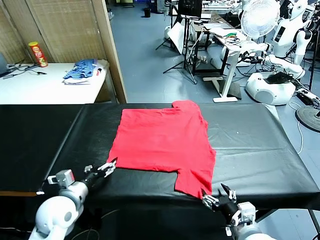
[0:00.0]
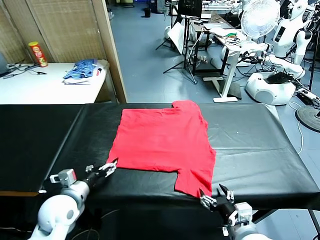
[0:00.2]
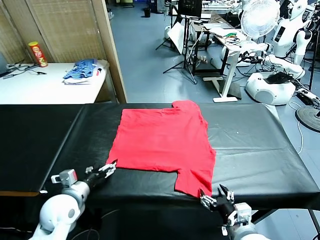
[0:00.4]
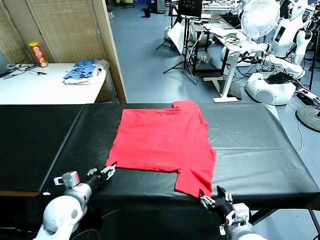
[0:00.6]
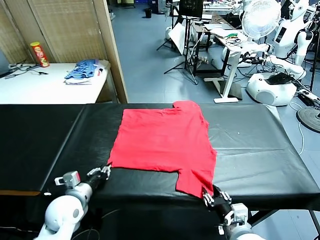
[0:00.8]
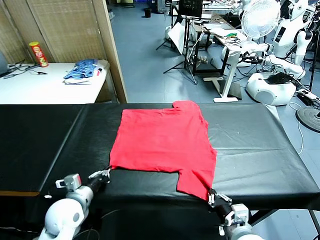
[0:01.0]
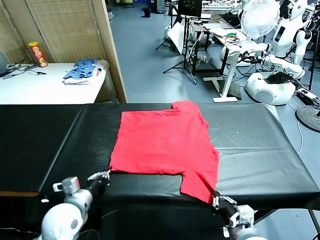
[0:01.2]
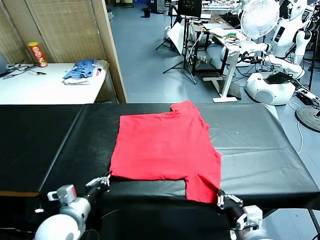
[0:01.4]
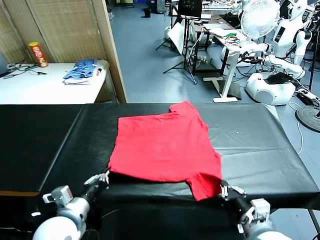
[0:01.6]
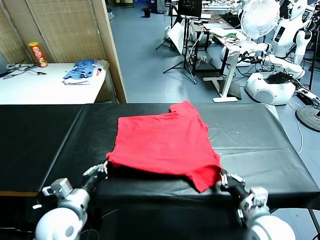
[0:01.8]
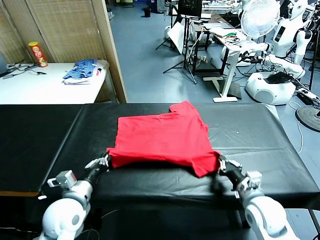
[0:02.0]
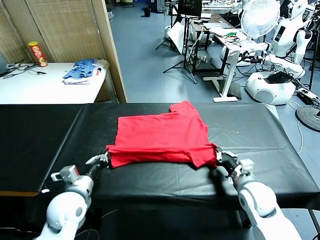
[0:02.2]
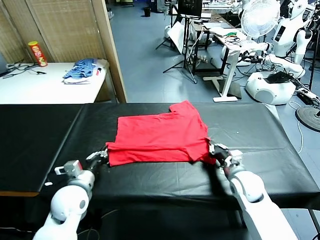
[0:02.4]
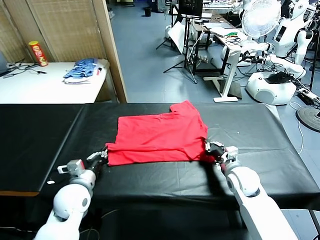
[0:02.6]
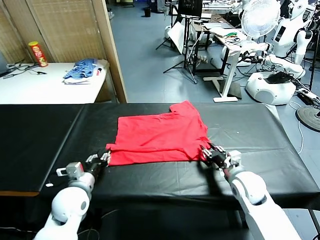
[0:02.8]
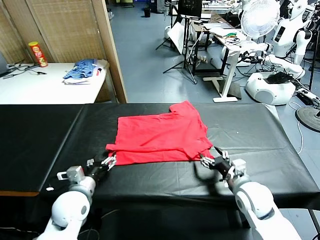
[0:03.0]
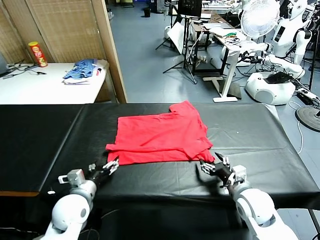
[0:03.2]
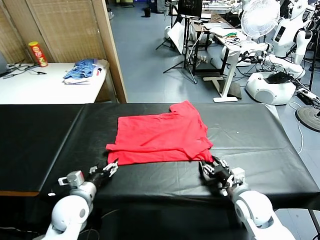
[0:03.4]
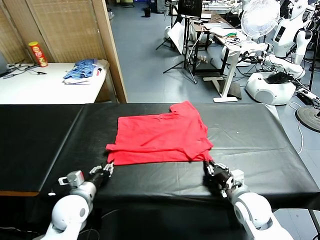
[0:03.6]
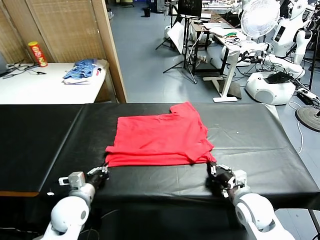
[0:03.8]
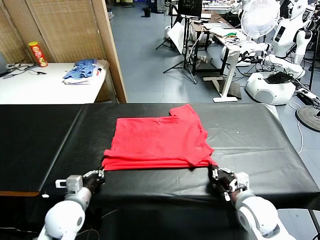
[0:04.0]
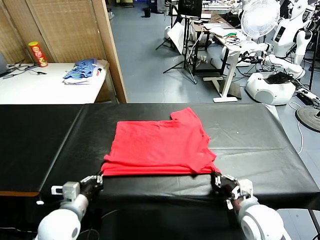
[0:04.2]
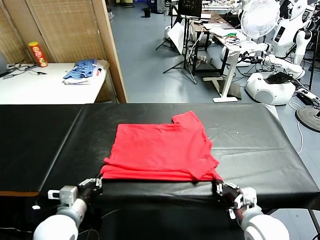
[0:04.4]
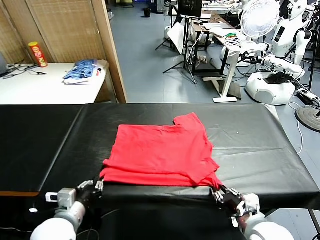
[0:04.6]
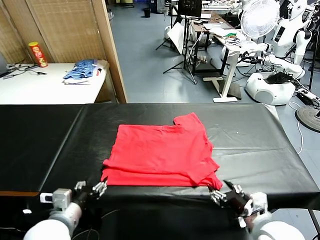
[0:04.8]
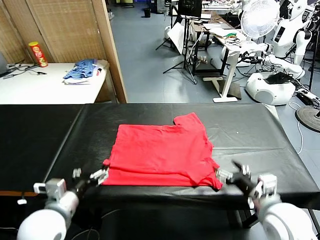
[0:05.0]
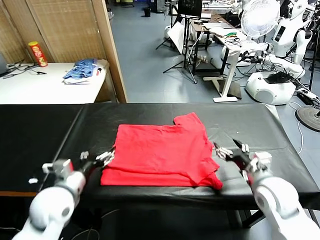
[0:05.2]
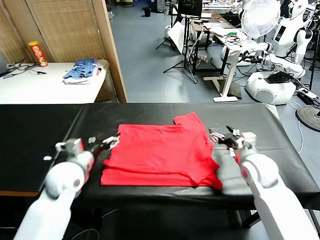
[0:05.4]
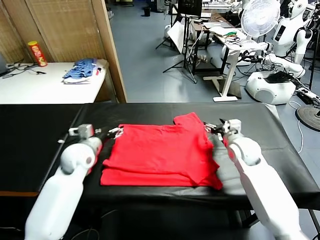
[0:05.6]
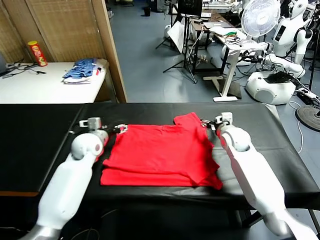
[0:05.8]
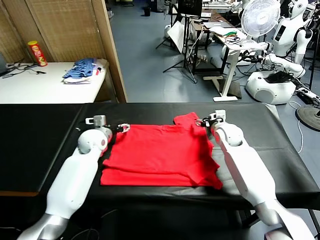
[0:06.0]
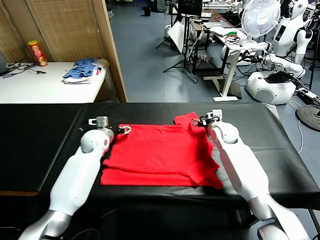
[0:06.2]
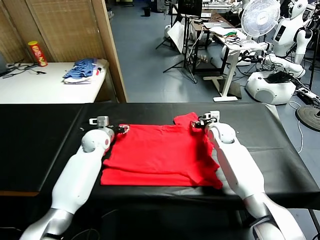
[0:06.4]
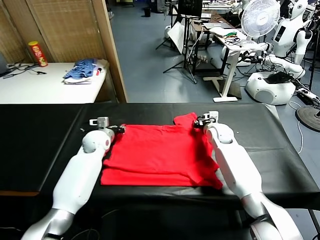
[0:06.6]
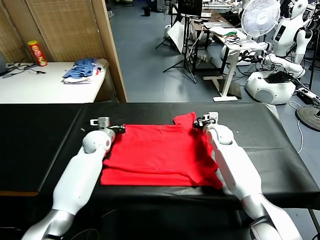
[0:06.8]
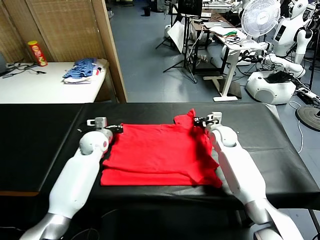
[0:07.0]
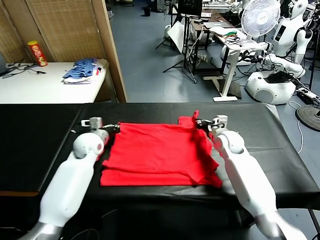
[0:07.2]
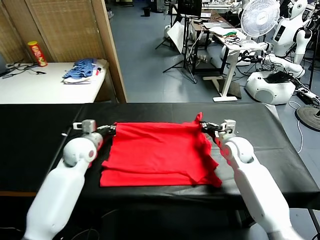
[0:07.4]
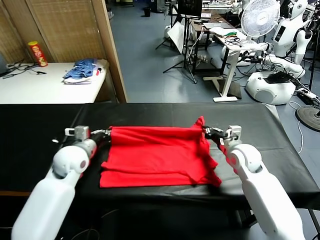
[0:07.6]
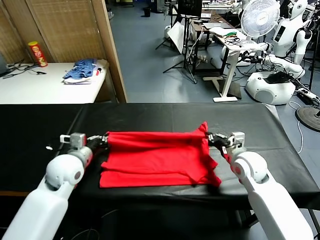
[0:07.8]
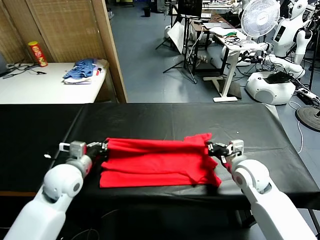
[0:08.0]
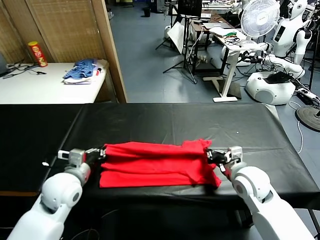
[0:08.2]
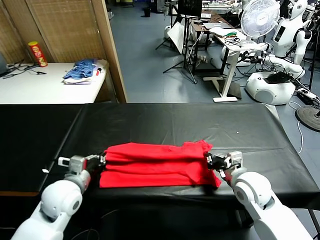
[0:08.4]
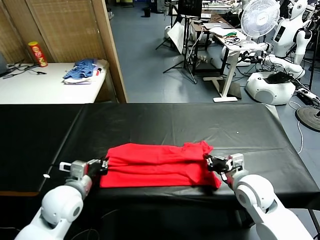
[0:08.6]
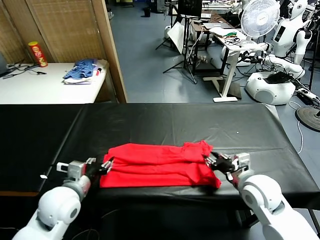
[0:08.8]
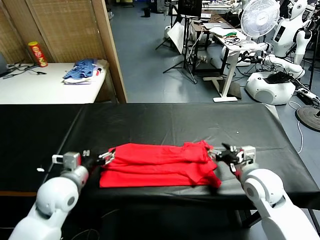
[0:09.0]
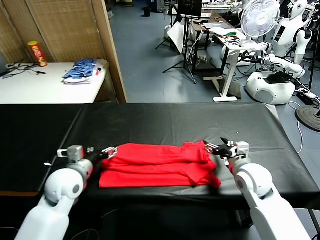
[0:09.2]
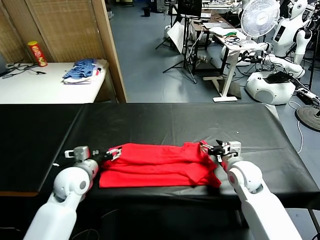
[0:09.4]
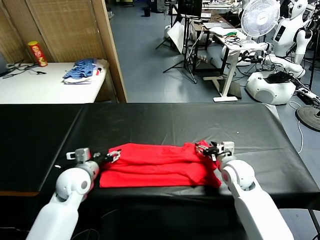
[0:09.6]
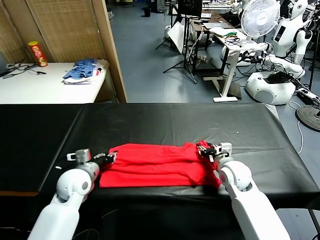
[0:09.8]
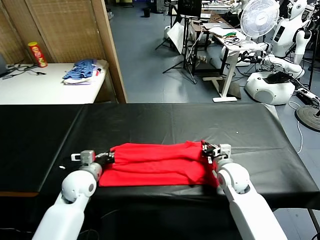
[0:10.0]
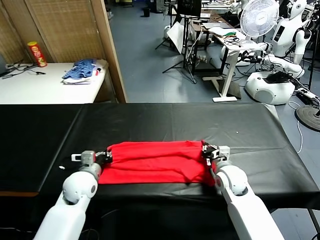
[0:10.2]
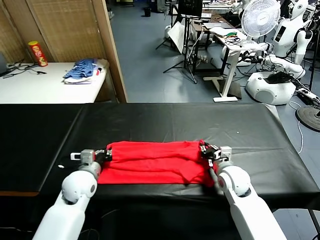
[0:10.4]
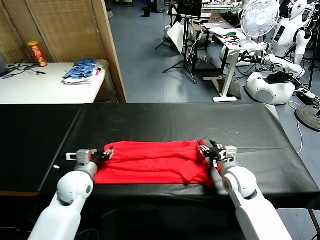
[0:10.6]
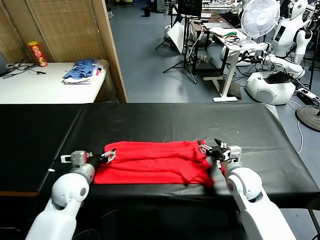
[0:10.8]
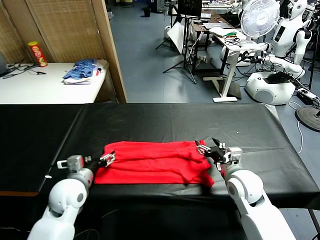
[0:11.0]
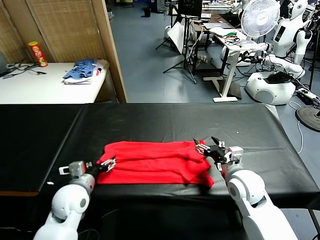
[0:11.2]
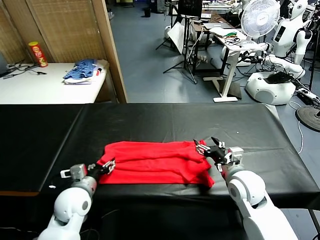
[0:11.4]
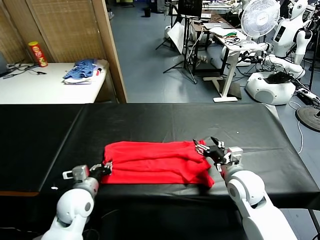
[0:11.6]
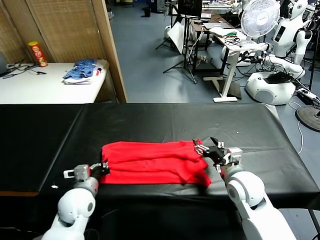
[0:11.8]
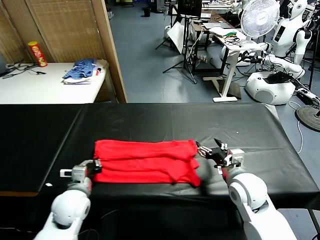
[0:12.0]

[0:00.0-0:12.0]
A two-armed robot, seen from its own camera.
Task of the whole recording: fold and organize the clothes.
Step, 0.0 to 1.2 s: use both grippers simultaneously to clamp the lower edge of the clothing fabric.
Step, 1.4 to 2.8 s: use both grippers to drag the lower edge of the fabric forward and fold it over the upper edge.
Step, 3.0 to 4.6 s: Drag the clothes downward with both gripper.
Step, 4.8 to 7.0 s: use both grippers simultaneously to clamp the upper edge of the clothing fabric.
Step, 7.4 to 11.8 s: use the left gripper to clamp the left edge of the fabric.
1.6 to 3.0 s: The two grippers go roughly 10 cm forward. The right gripper opens up. The left gripper opens its fingers.
3.0 to 4.4 s: The two grippers go some 10 cm backward. The left gripper closes up. The right gripper closes up.
4.4 to 6.0 s: The two grippers go roughly 30 cm forward. The left gripper opens. The right gripper opens up.
6.0 to 7.6 s: Both grippers travel together backward, approximately 10 cm. The right gripper closes; the left gripper closes its fingers.
7.6 to 9.0 s: Both grippers move backward, roughly 10 cm. The right gripper opens up, while the left gripper opens.
9.0 to 10.4 s: The grippers both shift downward and forward by approximately 10 cm. The left gripper closes, while the right gripper closes.
10.4 to 12.0 s: The left gripper shifts roughly 5 cm backward, and opens and closes again. Meanwhile the right gripper travels upward and backward by some 10 cm, and opens.

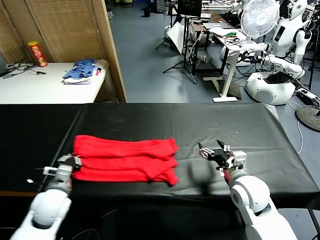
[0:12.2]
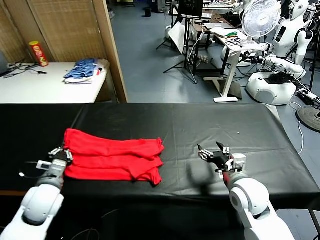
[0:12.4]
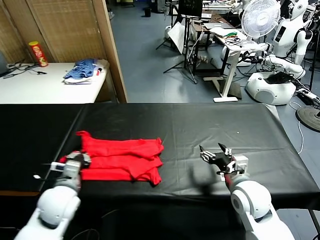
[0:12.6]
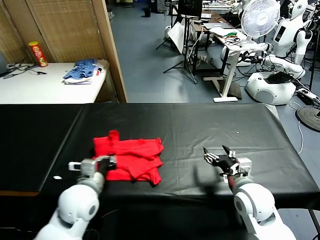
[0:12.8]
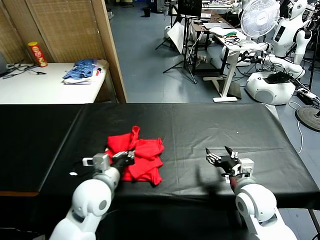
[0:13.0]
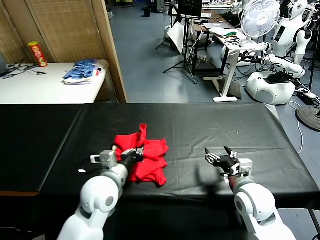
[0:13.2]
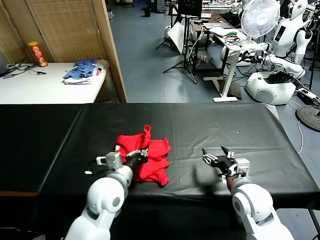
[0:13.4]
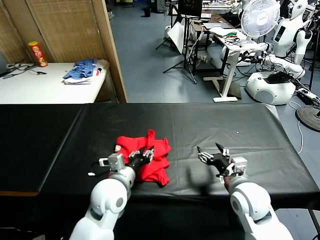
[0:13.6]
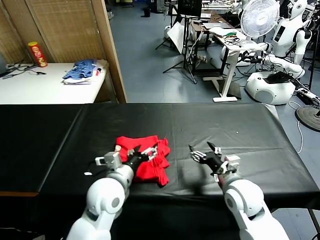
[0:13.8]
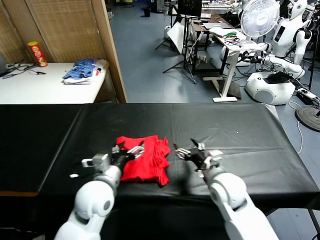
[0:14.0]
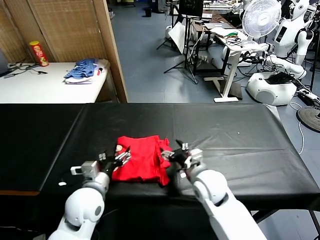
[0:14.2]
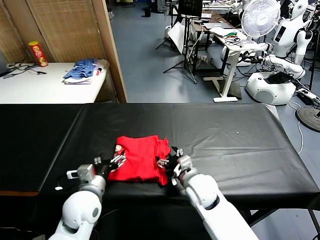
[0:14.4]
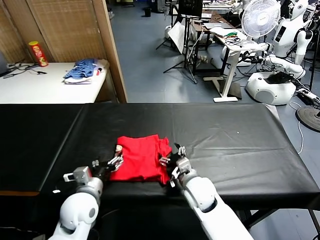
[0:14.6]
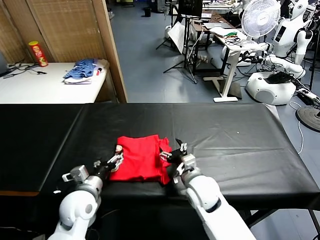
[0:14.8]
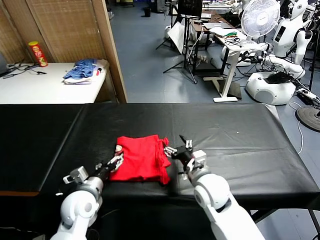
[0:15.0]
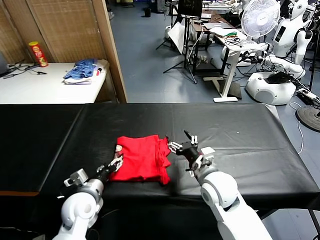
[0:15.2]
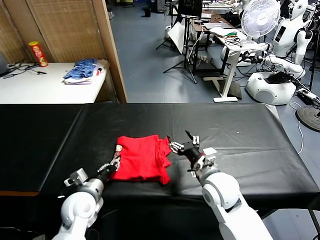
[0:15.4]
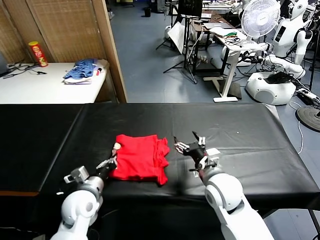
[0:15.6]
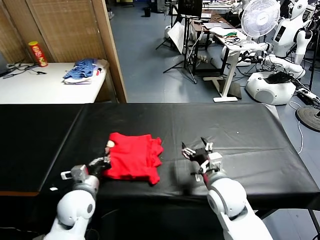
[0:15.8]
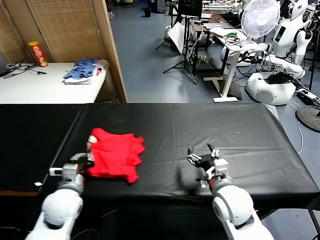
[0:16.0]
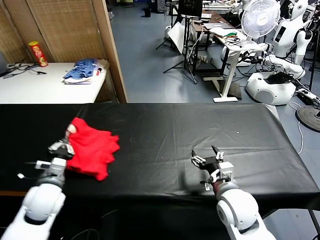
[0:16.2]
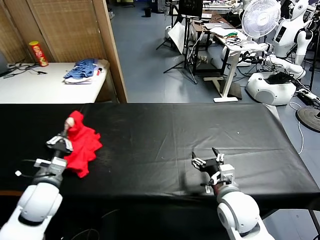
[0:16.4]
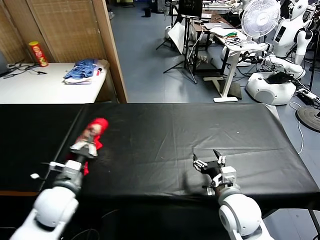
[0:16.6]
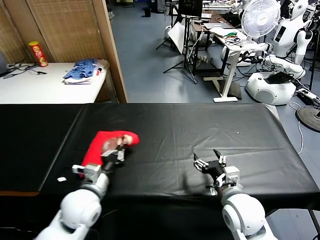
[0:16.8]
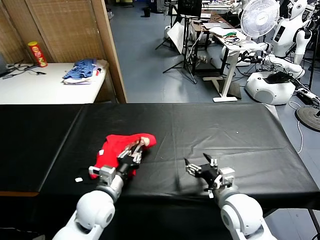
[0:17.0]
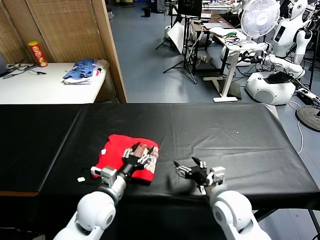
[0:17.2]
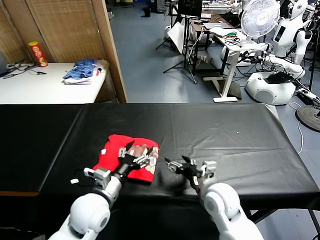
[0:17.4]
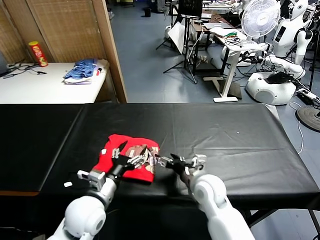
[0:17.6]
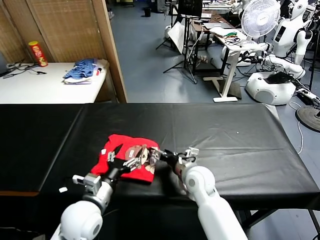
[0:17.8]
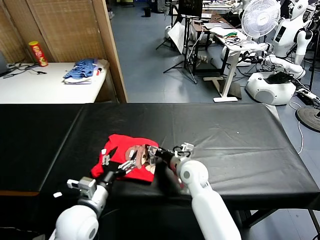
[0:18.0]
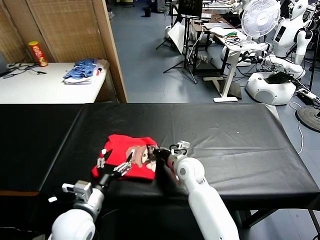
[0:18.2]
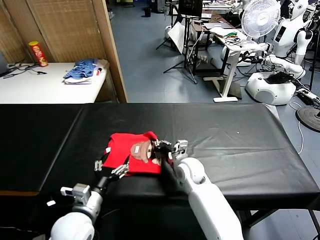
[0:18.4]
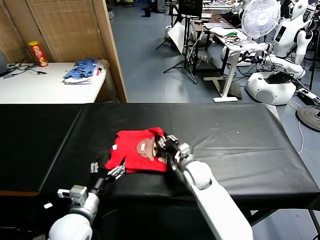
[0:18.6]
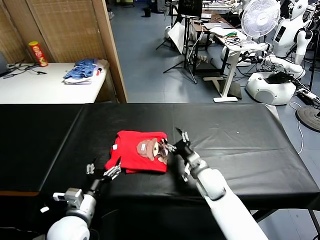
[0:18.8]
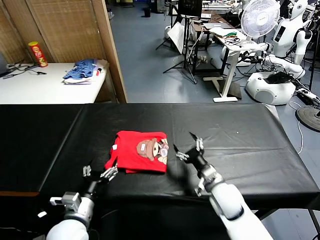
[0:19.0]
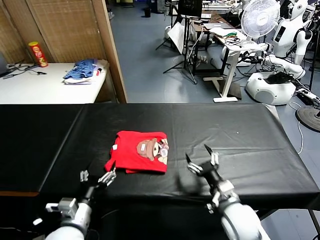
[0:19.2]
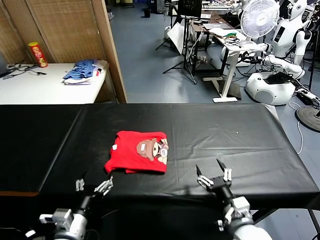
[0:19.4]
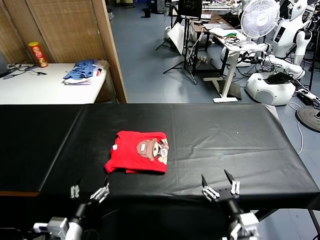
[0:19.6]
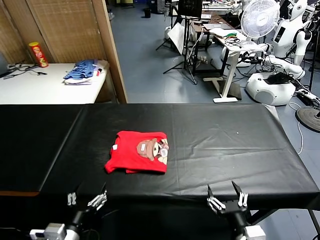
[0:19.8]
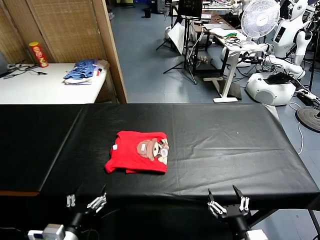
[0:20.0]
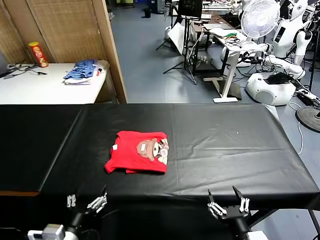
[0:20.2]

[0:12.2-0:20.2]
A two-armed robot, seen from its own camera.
Task of the whole recording: fold and organize the clothes.
Step, 12.2 to 13.8 s: use the left gripper to drag the left edge of the fabric to the left and folds it over the right edge.
Step, 14.0 to 17.2 s: Flip the folded clothes over with left gripper.
Step, 17.4 to 18.8 s: Drag the clothes to the center of the table.
12.2 to 13.8 s: The left gripper heads to the right, covering about 15 cm, and opens up.
13.8 to 15.4 s: The left gripper goes about 15 cm to the left and downward. The right gripper shifts about 5 cm to the left.
15.4 to 17.0 s: The left gripper is displaced to the right by roughly 5 cm, and closes its fingers; the right gripper goes some 5 cm backward.
17.0 to 18.6 s: The right gripper heads forward, to the left and downward, covering approximately 20 cm, and closes; the left gripper shifts roughly 5 cm backward, and opens its fingers.
18.6 to 20.2 s: The right gripper heads backward, covering some 30 cm, and opens up. The left gripper heads backward, covering about 10 cm.

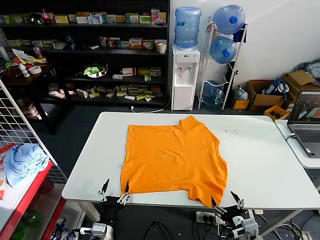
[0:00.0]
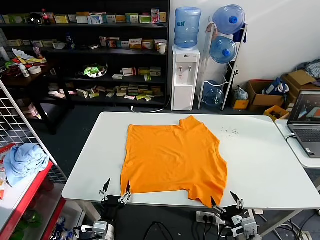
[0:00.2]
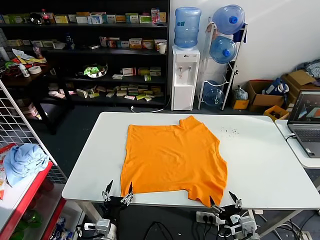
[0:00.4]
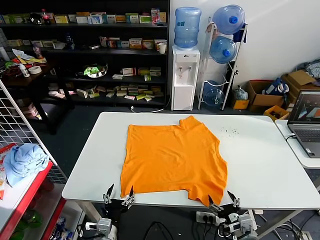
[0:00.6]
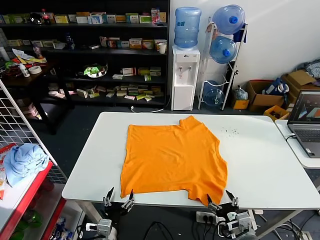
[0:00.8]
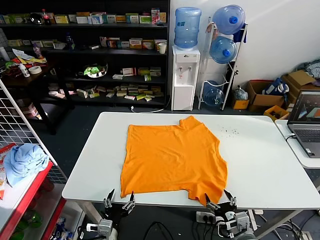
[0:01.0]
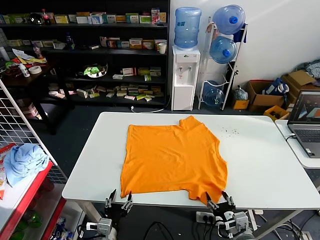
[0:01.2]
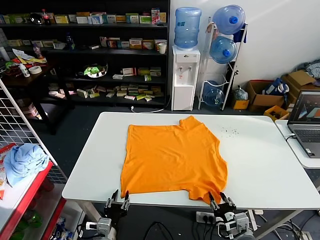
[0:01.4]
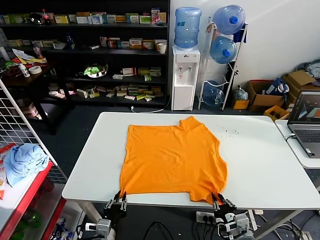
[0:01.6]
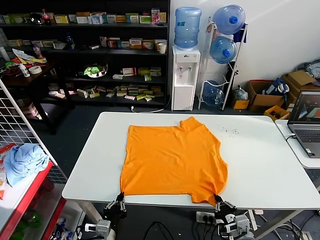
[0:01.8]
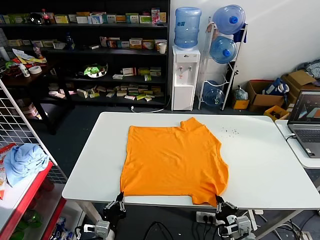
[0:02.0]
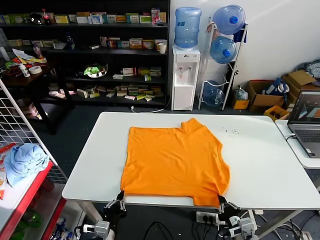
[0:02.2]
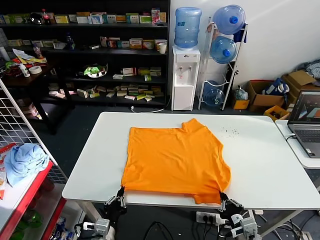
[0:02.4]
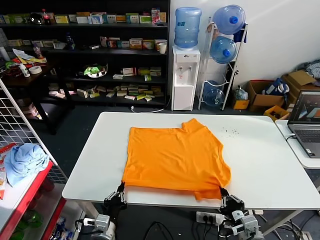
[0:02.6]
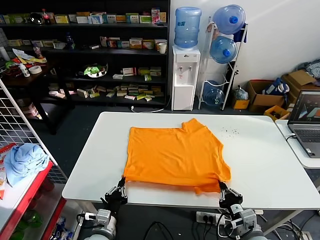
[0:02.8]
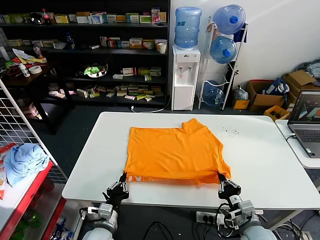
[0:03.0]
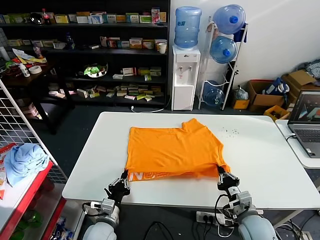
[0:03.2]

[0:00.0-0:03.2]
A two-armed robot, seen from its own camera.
Task of the whole recording: fold and organize the clothes.
Step, 0.0 to 1.8 s: use both grippers simultaneously to clamp the lower edge of the clothing fabric.
1.6 to 3.2 s: Both grippers move forward, approximately 5 cm.
